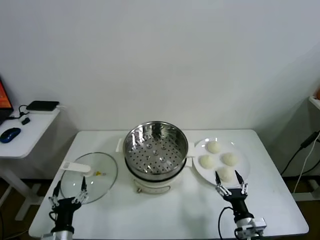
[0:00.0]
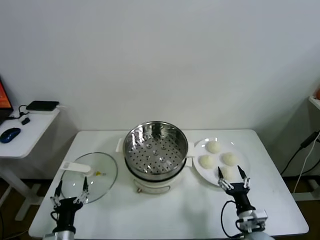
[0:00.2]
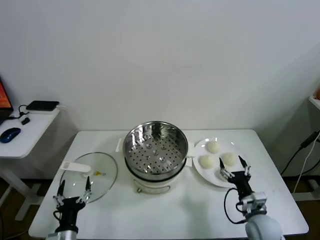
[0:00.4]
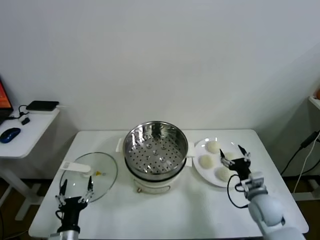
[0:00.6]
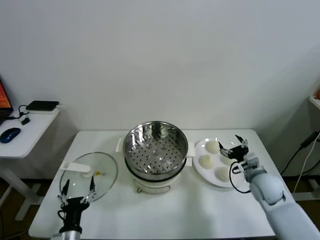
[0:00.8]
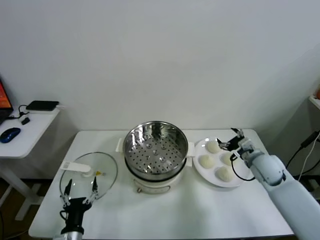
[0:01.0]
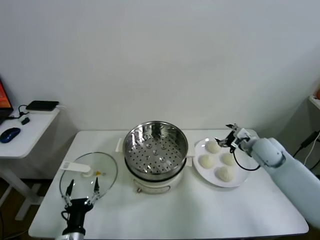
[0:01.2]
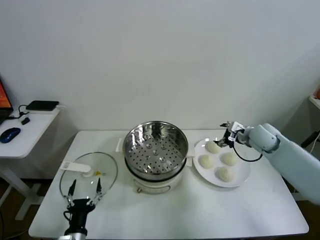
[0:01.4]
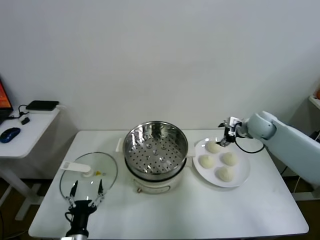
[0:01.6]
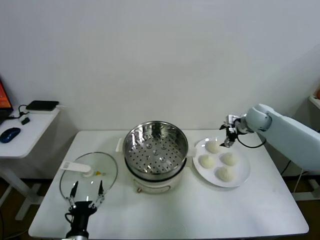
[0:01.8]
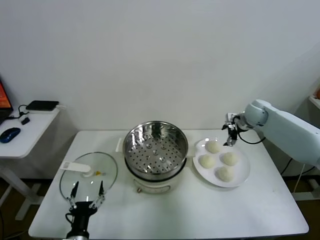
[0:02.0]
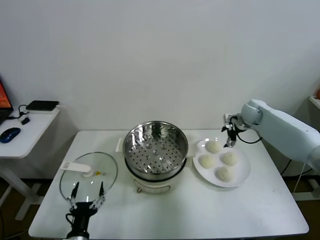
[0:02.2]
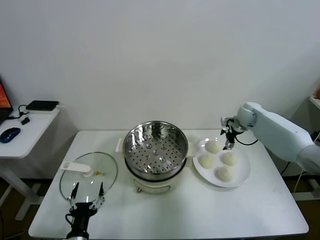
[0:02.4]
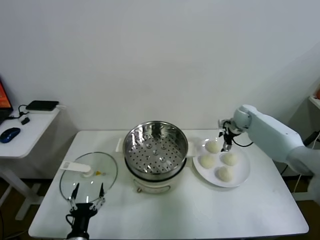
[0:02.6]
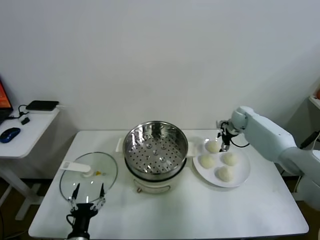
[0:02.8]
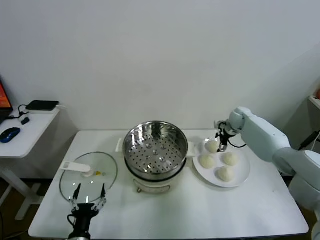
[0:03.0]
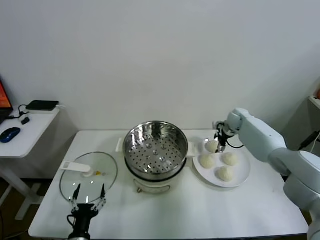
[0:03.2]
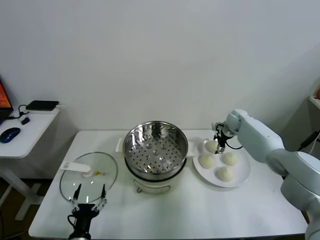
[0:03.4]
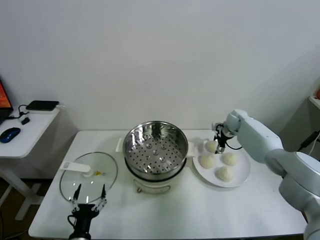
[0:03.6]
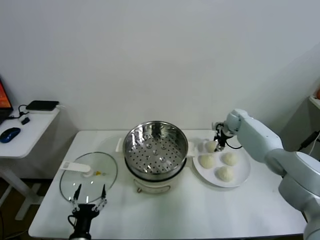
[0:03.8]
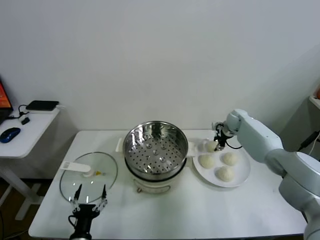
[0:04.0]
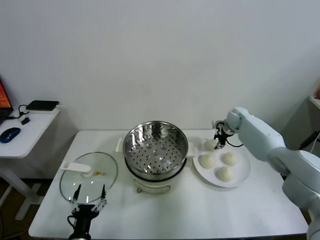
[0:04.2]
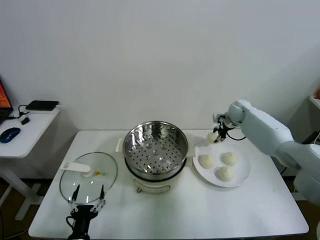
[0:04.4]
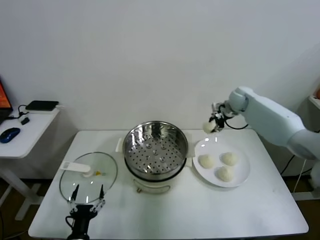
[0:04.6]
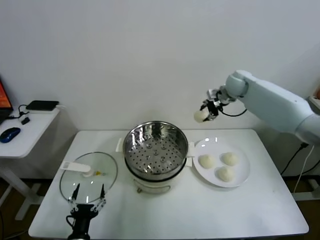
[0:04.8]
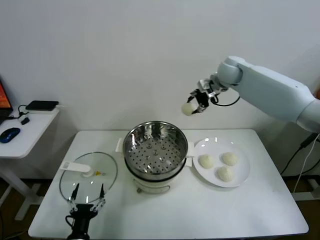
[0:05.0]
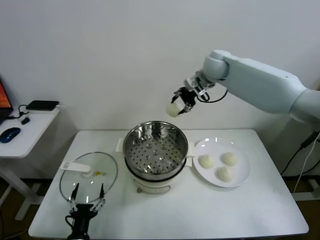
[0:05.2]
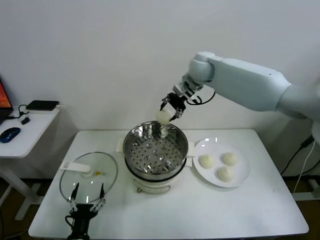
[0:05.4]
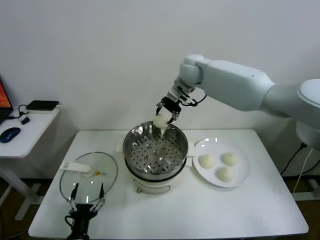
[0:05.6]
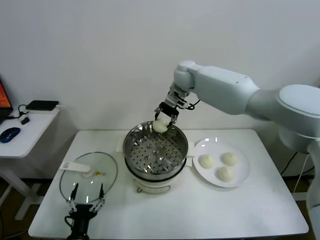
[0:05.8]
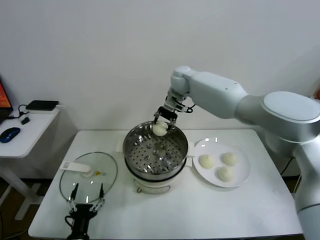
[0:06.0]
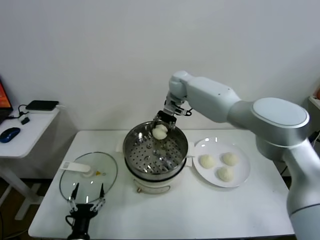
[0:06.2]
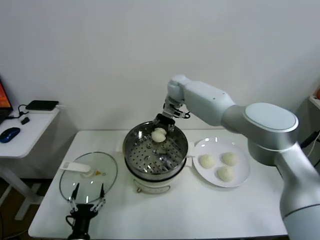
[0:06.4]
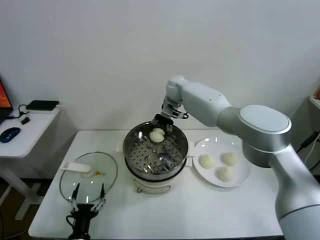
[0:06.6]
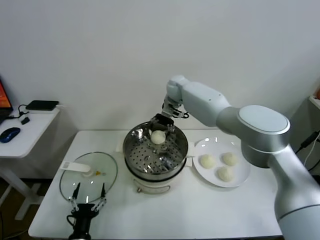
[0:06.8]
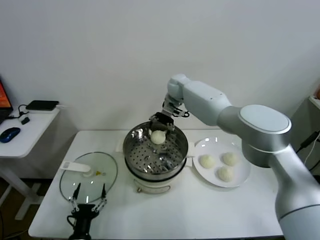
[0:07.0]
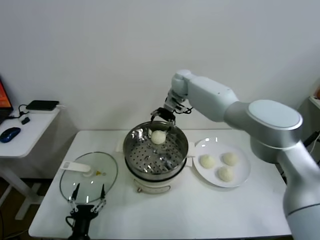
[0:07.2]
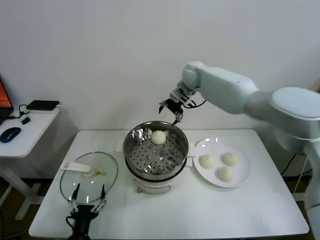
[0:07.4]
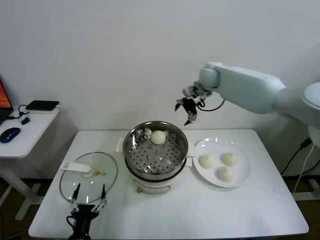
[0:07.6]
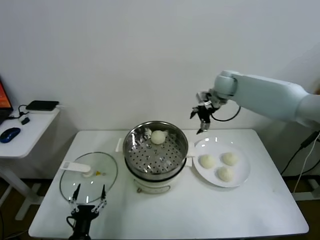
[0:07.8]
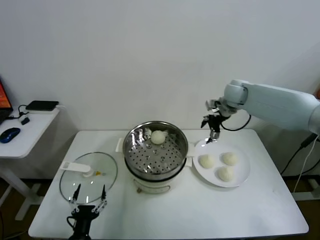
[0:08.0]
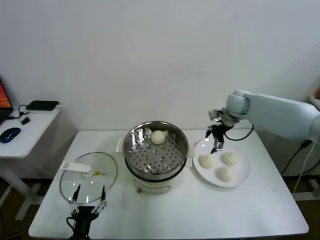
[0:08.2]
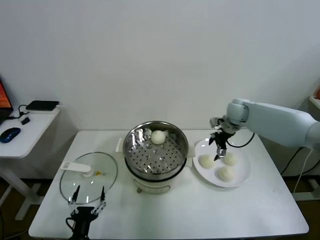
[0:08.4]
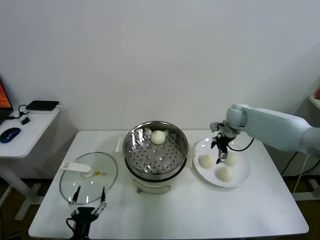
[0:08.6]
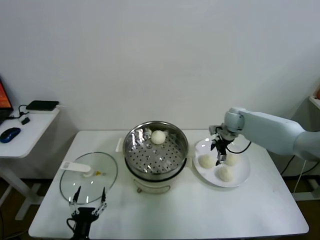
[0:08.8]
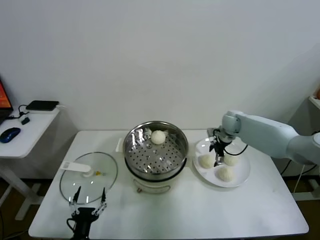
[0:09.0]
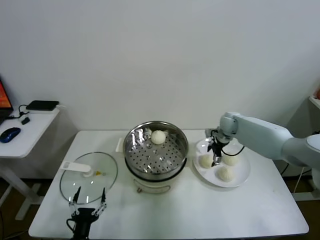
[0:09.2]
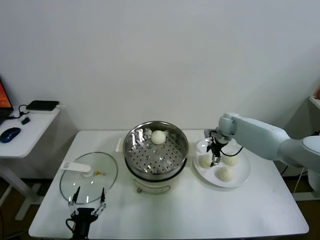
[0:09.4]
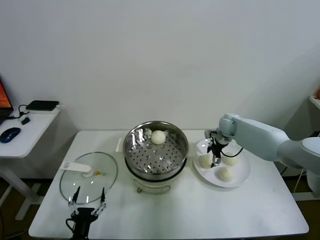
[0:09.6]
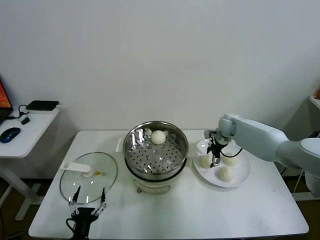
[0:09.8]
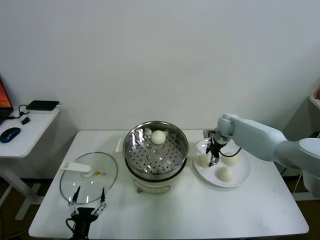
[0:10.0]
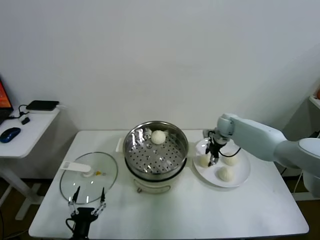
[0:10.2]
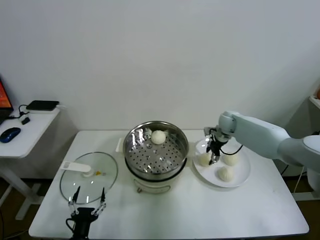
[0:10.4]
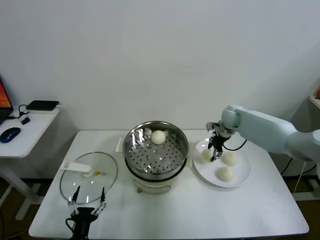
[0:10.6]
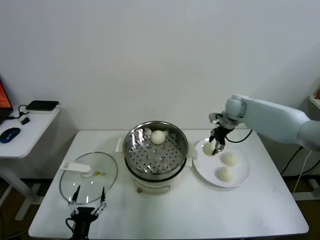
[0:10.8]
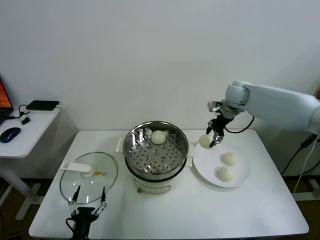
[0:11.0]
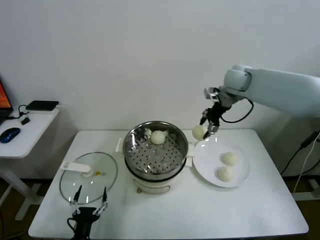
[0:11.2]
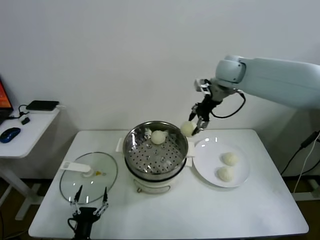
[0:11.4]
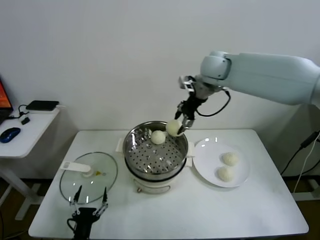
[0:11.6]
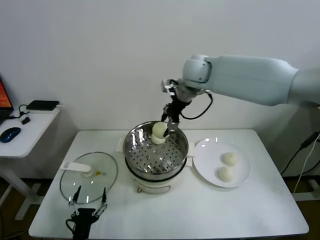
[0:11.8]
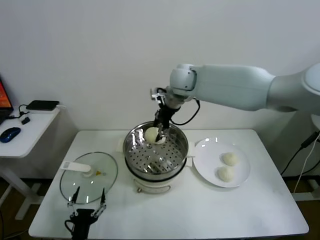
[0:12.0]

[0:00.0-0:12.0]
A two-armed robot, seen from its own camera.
Task of the whole recording: take steamed baozi put them in steamer.
Step, 0.0 to 4.0 s: Grasp the baozi in the plate with right gripper.
Step, 4.2 to 7.0 s: Place the baozi on the steamer with right gripper.
Step, 7.2 to 10.2 s: Grasp the baozi in the plate with right gripper.
1.6 to 3.0 s: The right gripper shifts some 10 cm forward and downward.
3.0 to 4.4 s: The right gripper closes.
4.4 to 6.0 s: The right gripper travels to the left and upward by approximately 30 cm.
6.0 to 7.6 s: The right gripper moves to the right, some 10 cm, and opens up.
7.6 to 9.0 s: The right gripper moves downward and to the right, roughly 20 cm.
9.0 to 10.4 s: The right gripper closes up.
10.4 to 12.0 s: The right gripper heads upward and to the left, covering some 30 cm.

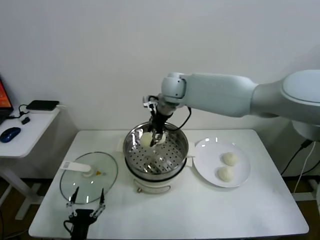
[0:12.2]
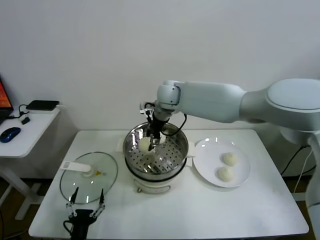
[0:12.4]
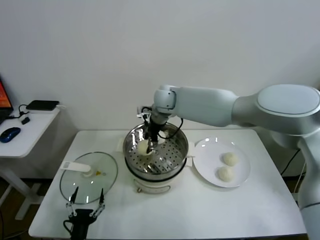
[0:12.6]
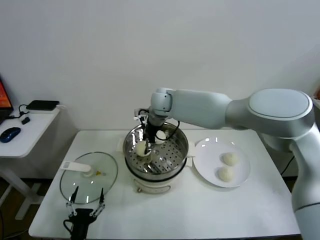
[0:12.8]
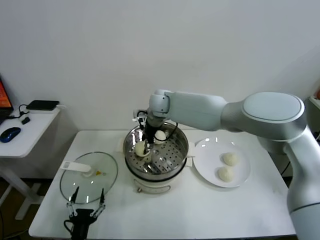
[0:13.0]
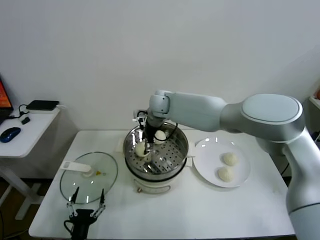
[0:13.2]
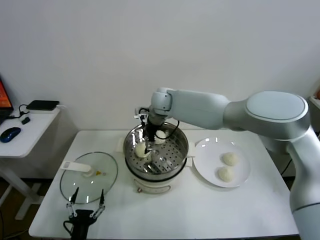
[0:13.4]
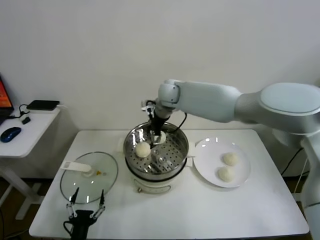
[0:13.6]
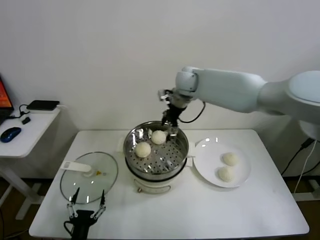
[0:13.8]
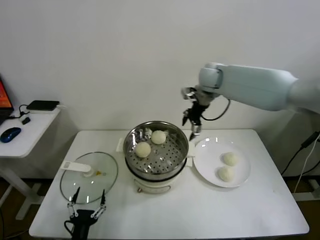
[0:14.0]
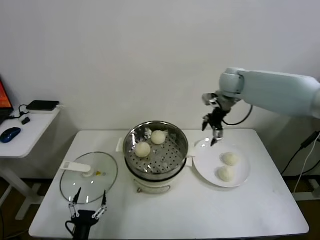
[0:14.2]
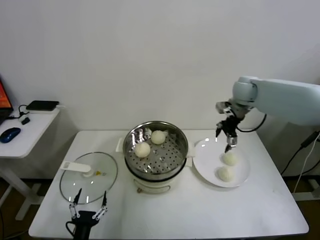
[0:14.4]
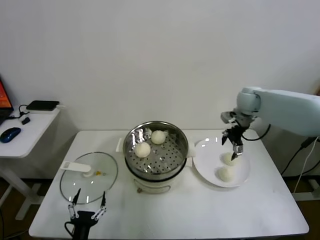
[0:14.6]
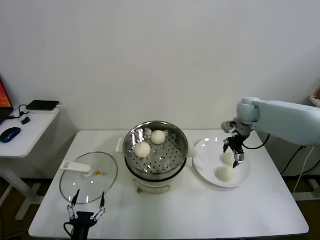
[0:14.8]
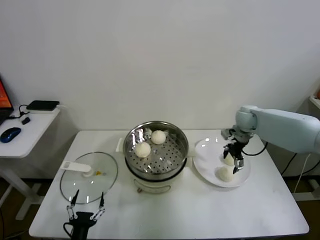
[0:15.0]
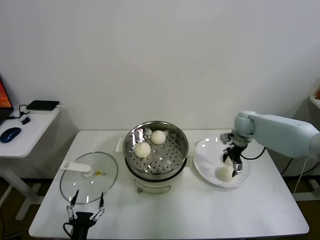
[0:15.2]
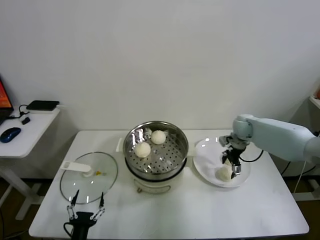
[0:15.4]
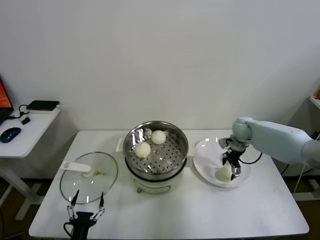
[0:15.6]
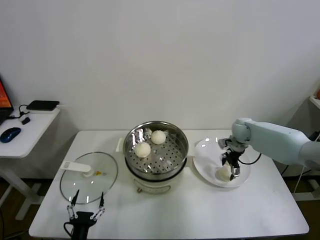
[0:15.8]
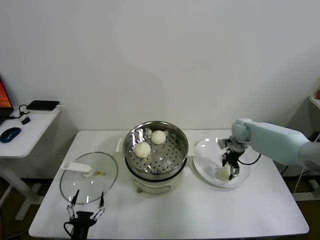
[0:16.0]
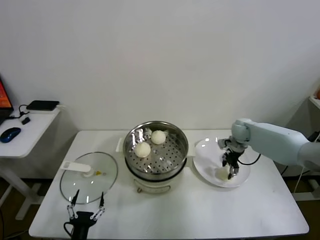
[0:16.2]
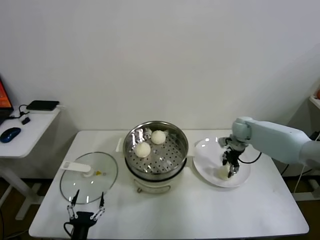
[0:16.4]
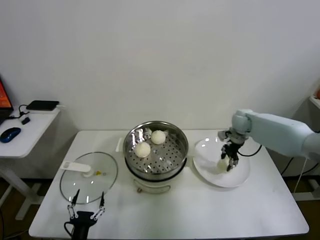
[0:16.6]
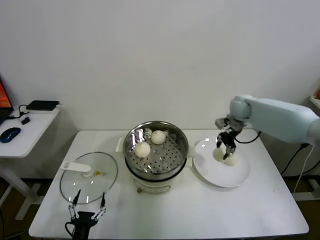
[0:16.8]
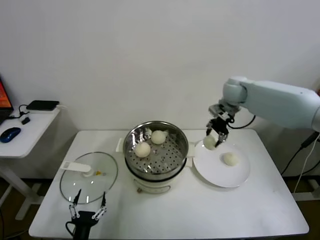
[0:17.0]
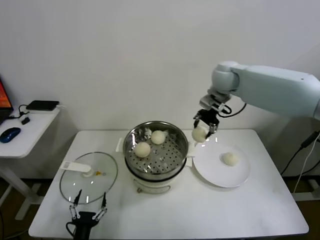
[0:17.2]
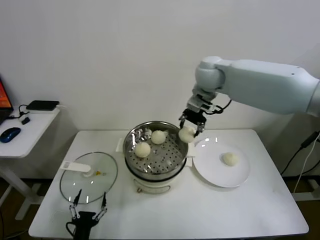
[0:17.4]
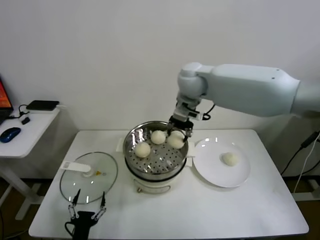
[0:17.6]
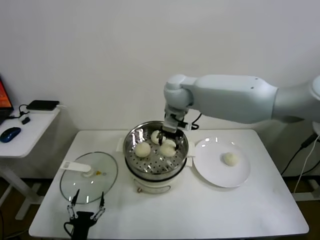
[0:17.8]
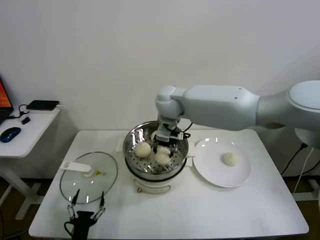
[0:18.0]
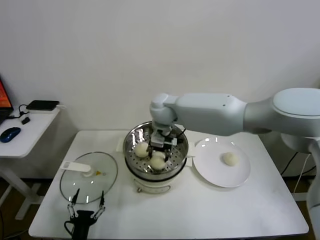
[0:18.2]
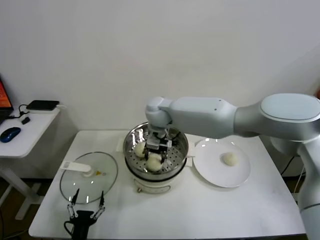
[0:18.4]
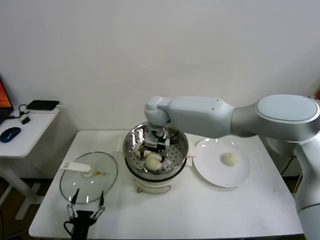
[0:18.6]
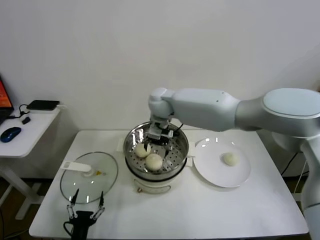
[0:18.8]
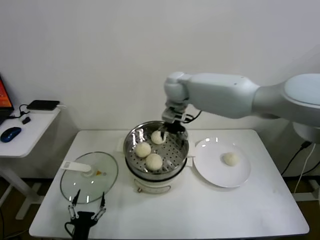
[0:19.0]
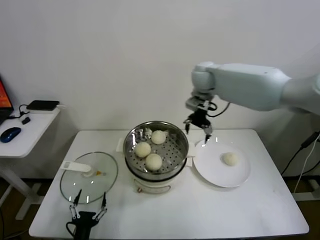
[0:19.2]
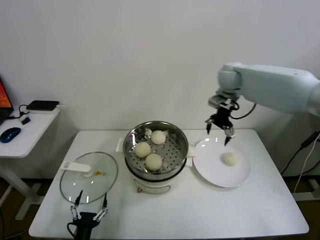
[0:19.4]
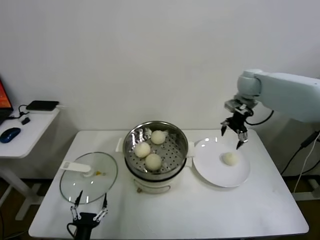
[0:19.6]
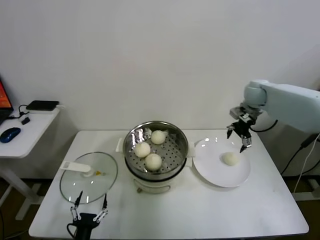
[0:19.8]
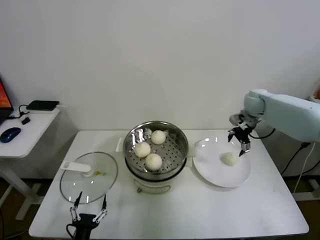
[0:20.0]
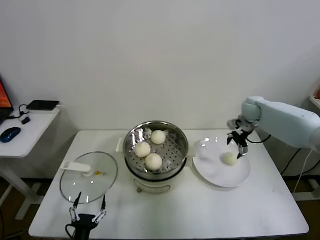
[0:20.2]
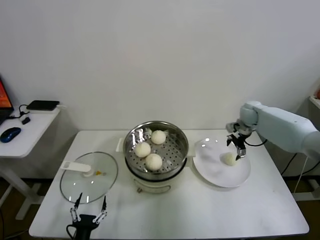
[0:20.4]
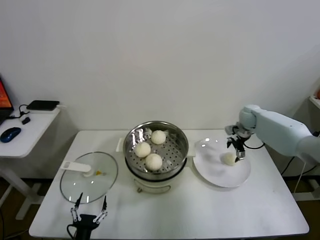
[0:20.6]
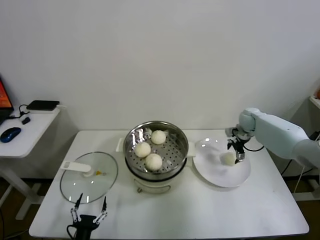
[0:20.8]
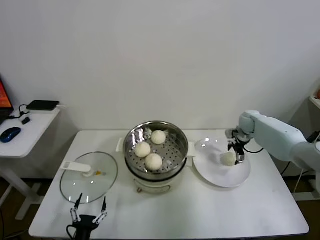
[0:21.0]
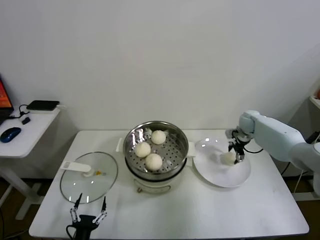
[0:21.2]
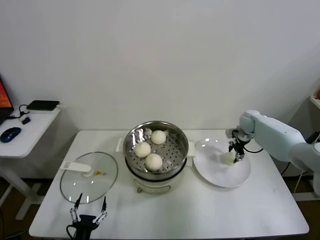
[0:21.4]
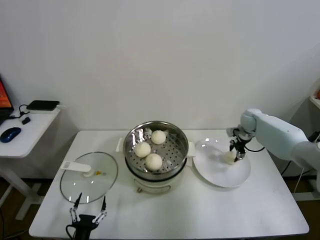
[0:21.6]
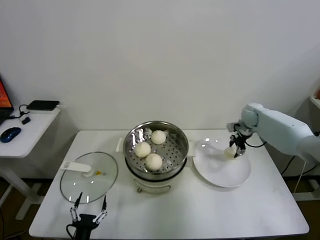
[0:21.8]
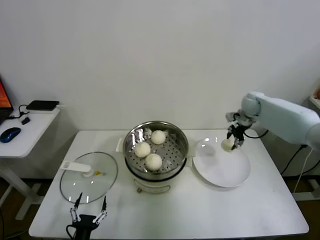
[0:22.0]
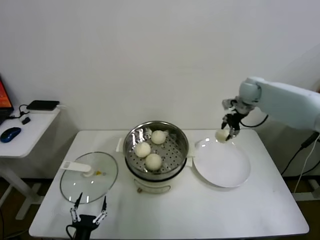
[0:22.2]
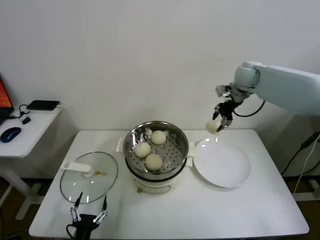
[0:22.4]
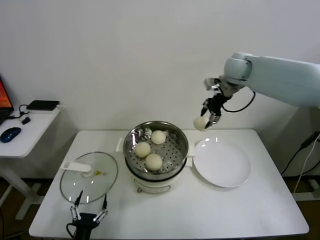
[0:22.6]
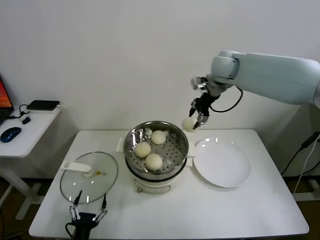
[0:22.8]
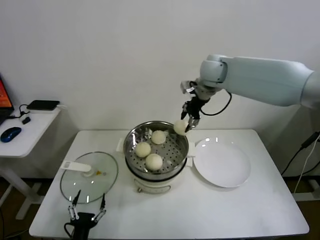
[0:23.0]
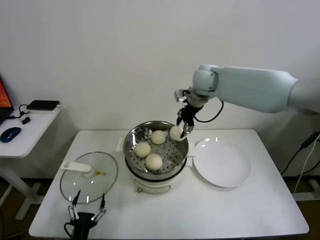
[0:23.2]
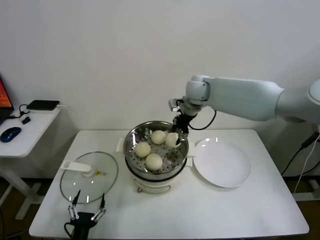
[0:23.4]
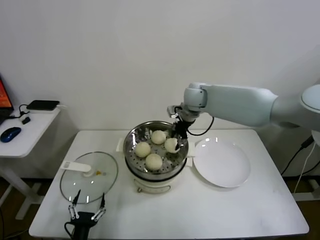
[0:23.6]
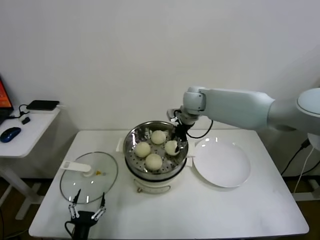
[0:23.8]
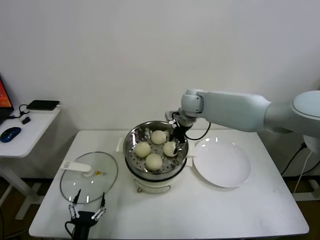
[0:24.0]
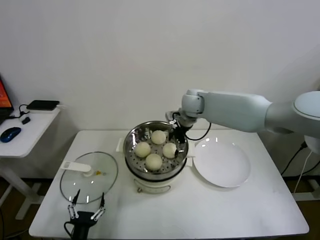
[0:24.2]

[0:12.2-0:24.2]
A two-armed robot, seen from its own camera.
Task of the whole recording: take steamed baozi put them in steamer.
Step, 13.4 to 16.2 s: Grasp the baozi in the plate with right gripper.
Step, 16.4 to 18.6 s: Place the baozi on the steamer with right gripper.
Step, 18.8 to 21.4 s: Grasp the baozi in the plate with right gripper.
12.2 to 13.8 s: The right gripper opens up.
13.8 to 15.2 s: The right gripper heads to the right and downward, covering about 30 cm.
15.2 to 16.6 s: The right gripper closes up.
16.6 to 18.2 s: The right gripper is displaced to the left by approximately 30 cm.
18.2 to 19.8 s: The right gripper travels to the right by about 35 cm, and opens.
19.8 to 21.2 s: The right gripper shifts approximately 15 cm downward.
21.2 to 22.6 s: The right gripper goes roughly 30 cm upward and to the left, and closes its fingers.
22.6 to 24.2 s: The right gripper moves to the left and downward, approximately 20 cm, and opens its fingers.
